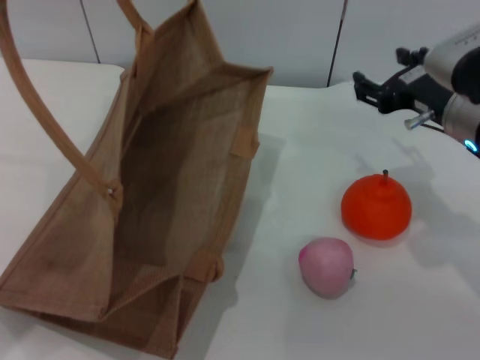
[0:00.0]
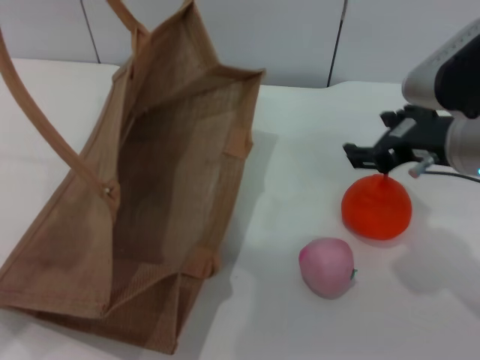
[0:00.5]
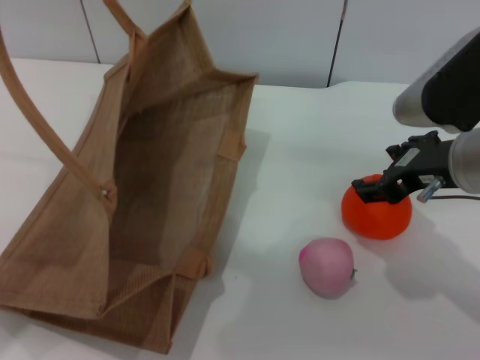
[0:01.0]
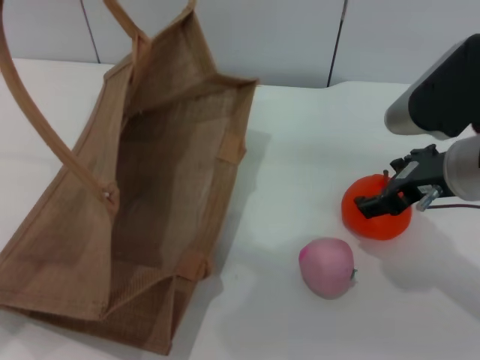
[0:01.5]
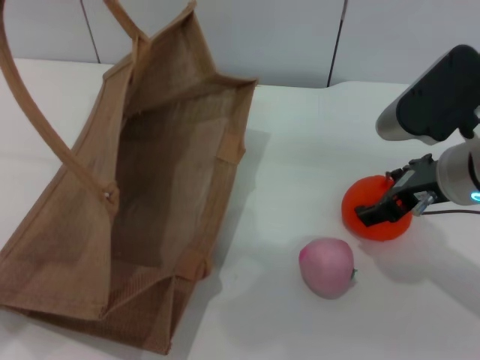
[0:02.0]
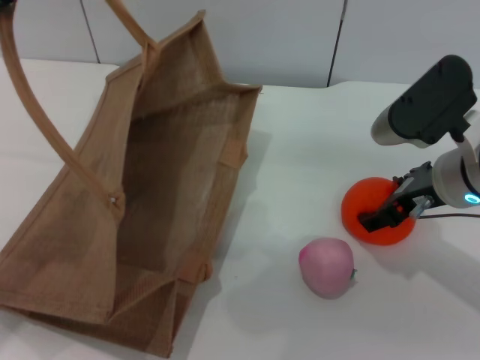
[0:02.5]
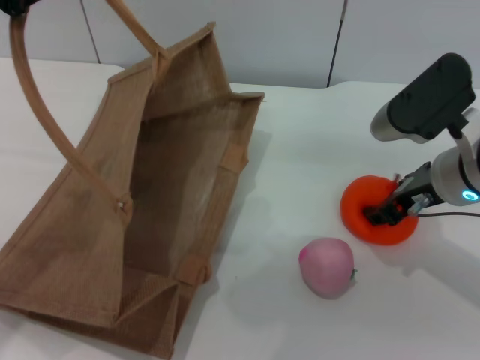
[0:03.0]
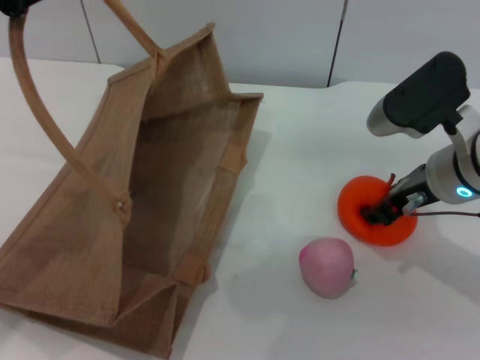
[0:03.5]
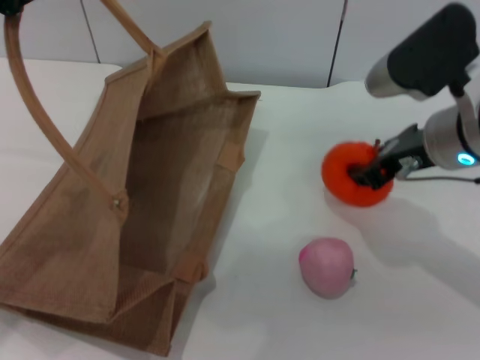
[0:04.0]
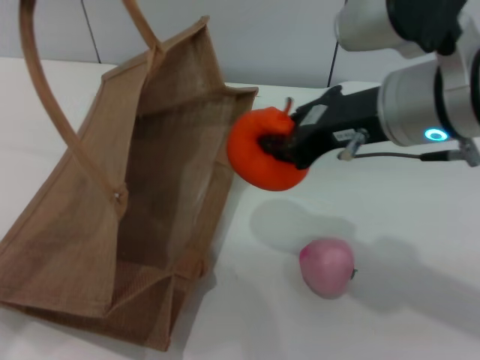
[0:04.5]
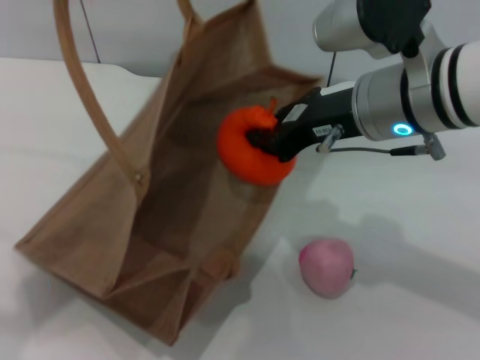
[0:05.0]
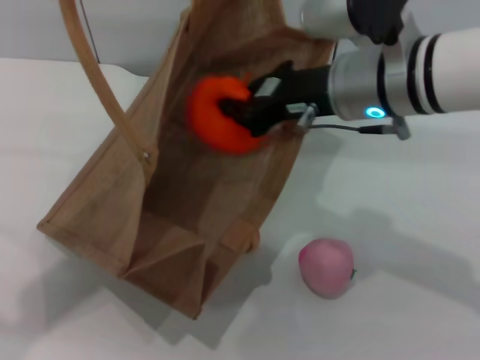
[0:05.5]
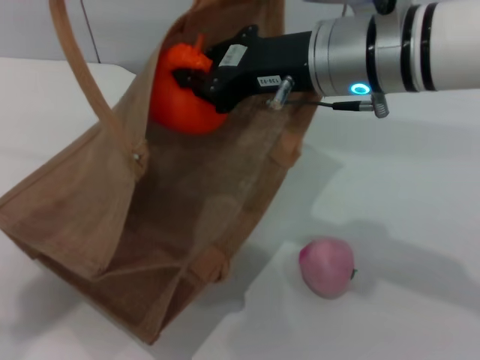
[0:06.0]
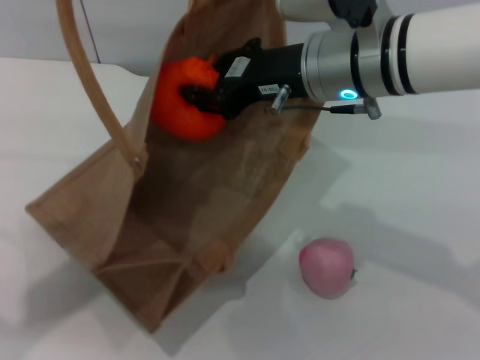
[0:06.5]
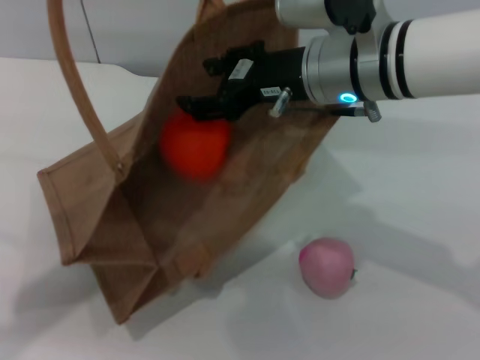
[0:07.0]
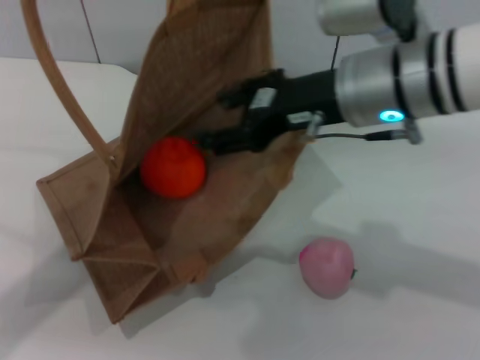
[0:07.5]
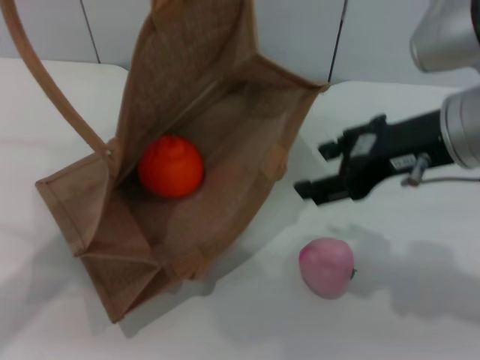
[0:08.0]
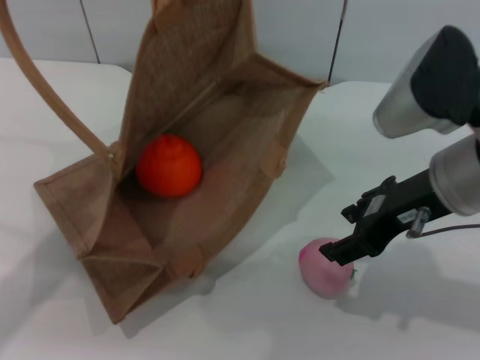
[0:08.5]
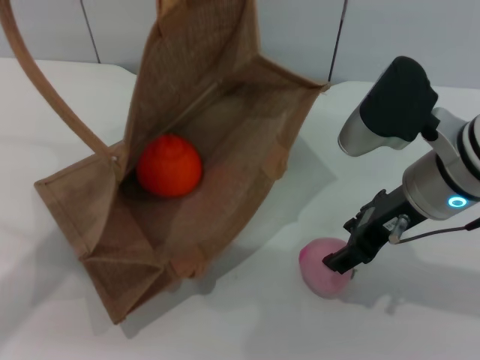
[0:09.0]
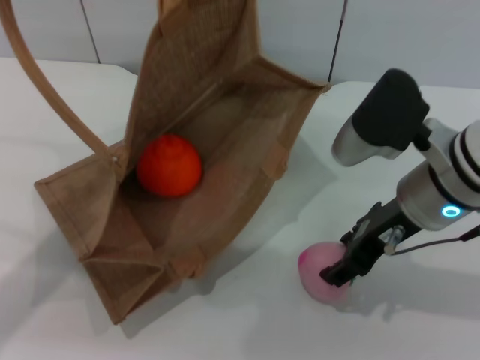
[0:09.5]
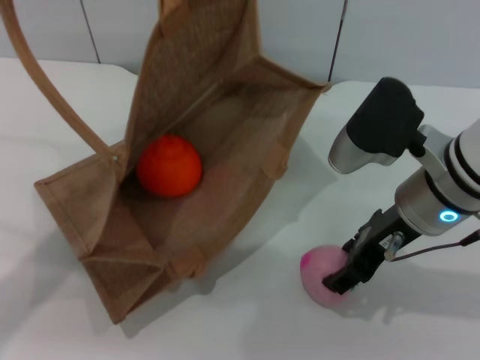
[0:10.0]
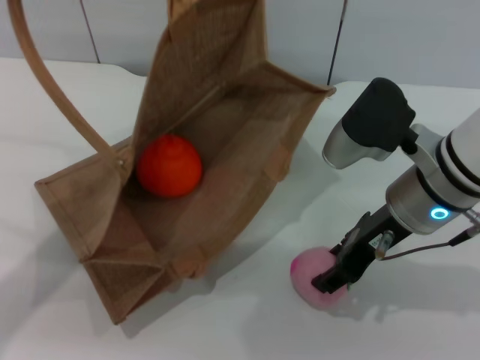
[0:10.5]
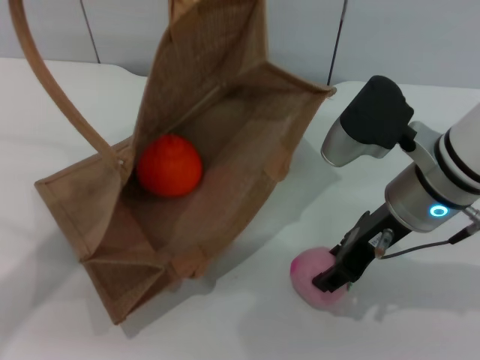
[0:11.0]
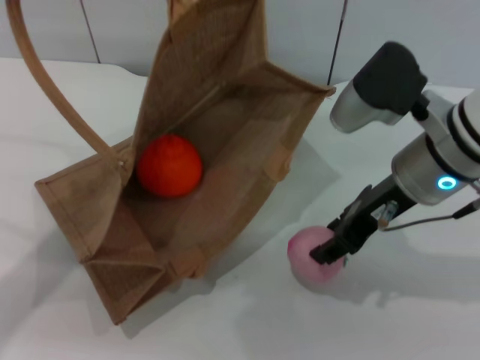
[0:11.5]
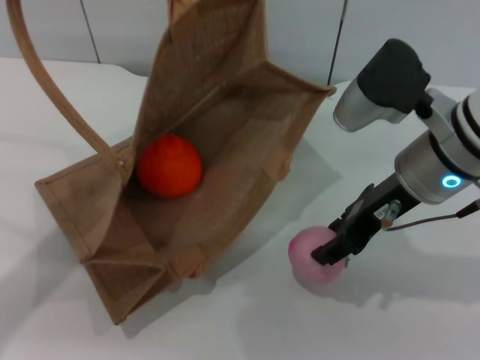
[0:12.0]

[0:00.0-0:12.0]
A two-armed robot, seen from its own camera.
Task of the whole recording: pick up the orange and peach from the table and place it in the brown handbag.
Step, 0:00.0 to 0:04.0: Pick up the orange with the right gripper.
Step, 0:04.5 to 0:07.5: Place the orange into the woven bag with the right gripper.
0:02.0 to 0:04.0: The right gripper closes.
0:04.0 to 0:06.0: The right gripper travels to the left and upward by approximately 10 cm, and closes up. The left gripper changes place by some 5 cm.
0:06.0 to 0:08.0: The right gripper goes approximately 10 cm to the right, and opens its fingers.
0:08.0 to 0:10.0: The right gripper is displaced downward by about 10 cm.
0:10.0 to 0:12.0: There are only small adjustments of the grippers.

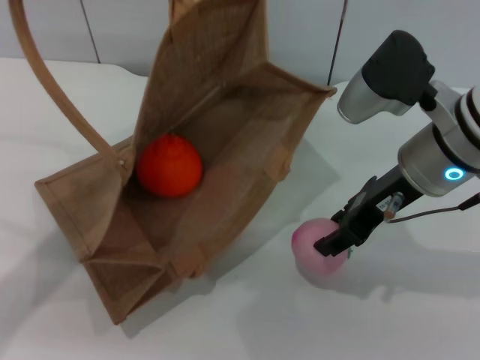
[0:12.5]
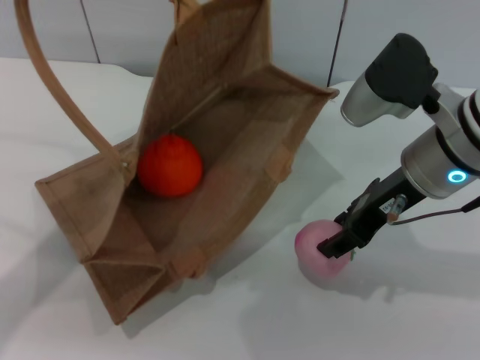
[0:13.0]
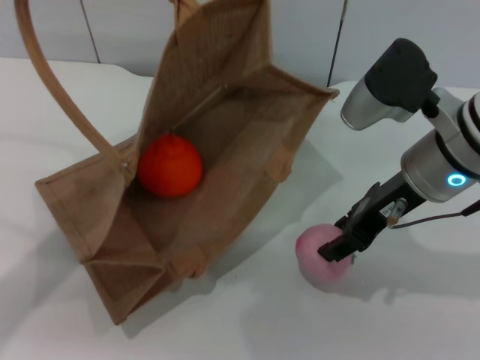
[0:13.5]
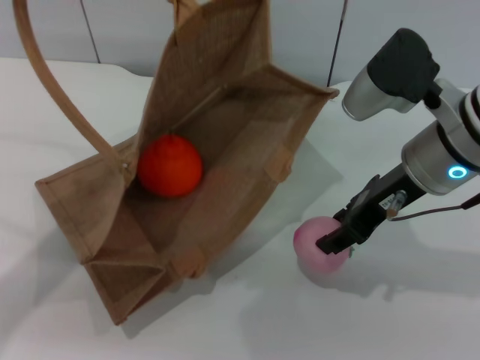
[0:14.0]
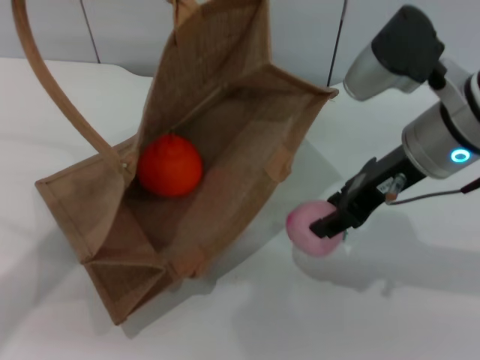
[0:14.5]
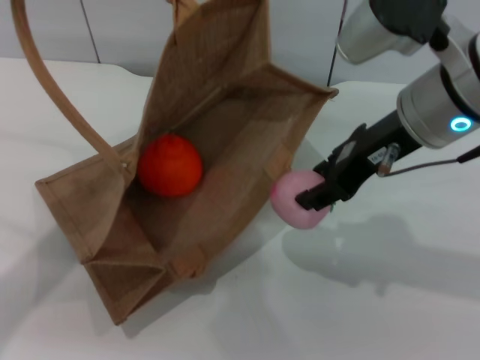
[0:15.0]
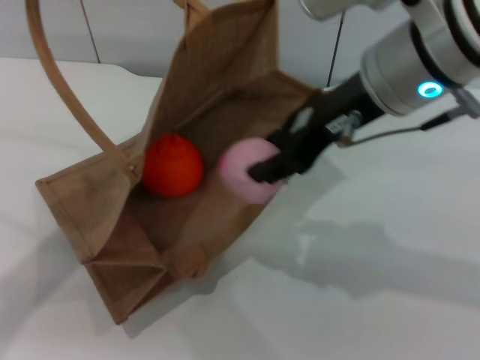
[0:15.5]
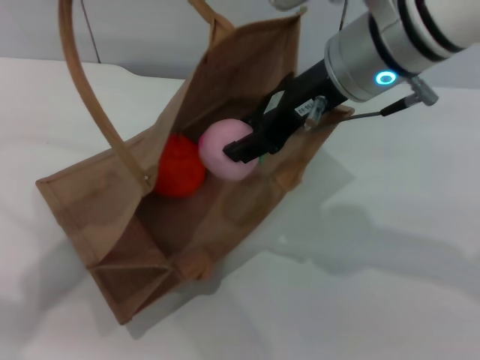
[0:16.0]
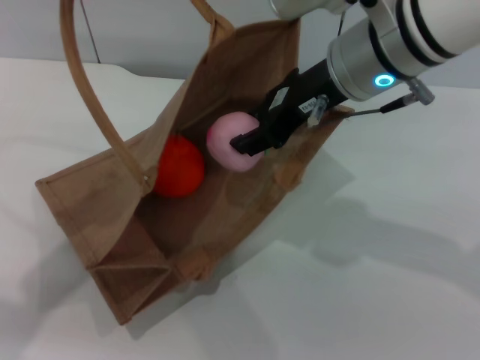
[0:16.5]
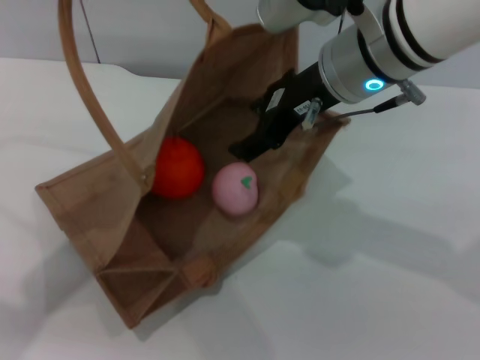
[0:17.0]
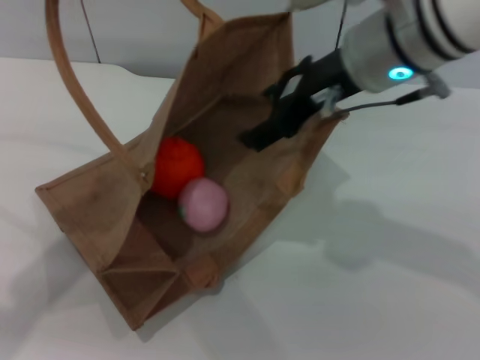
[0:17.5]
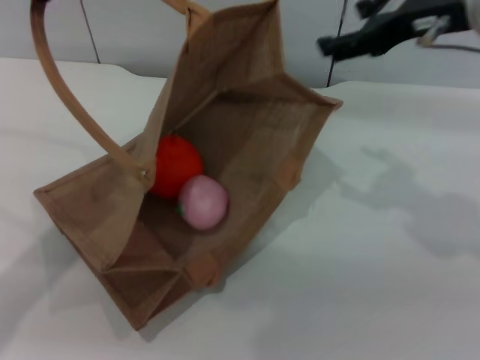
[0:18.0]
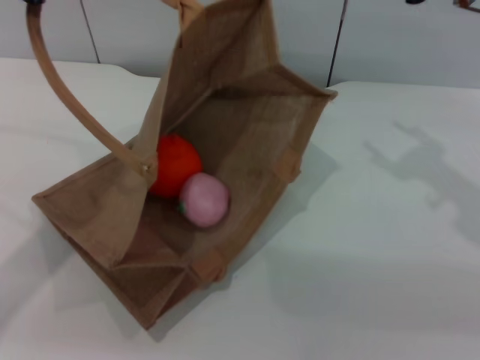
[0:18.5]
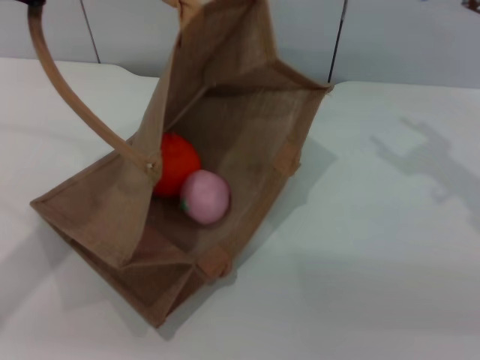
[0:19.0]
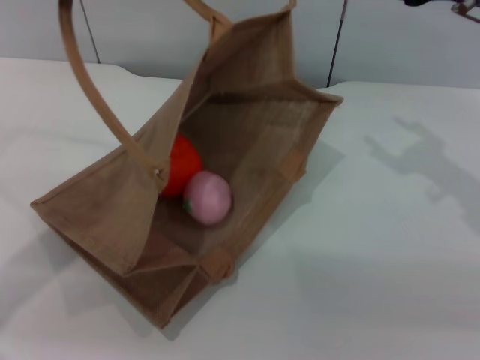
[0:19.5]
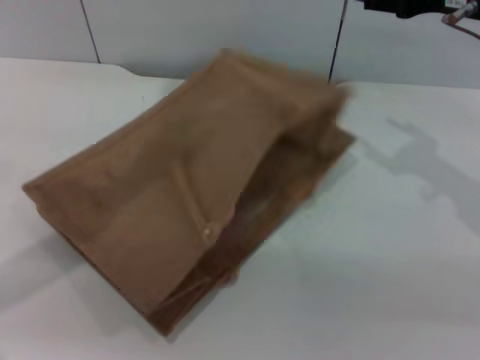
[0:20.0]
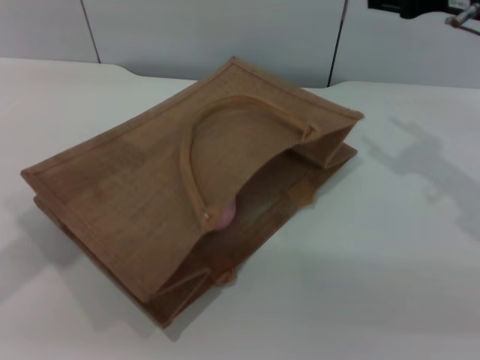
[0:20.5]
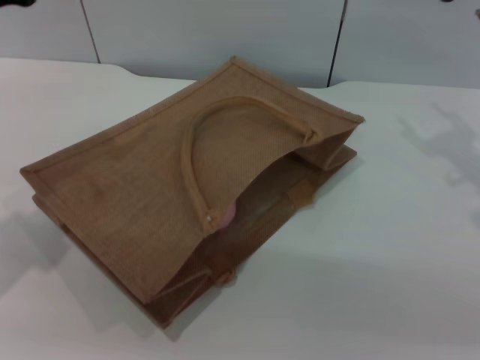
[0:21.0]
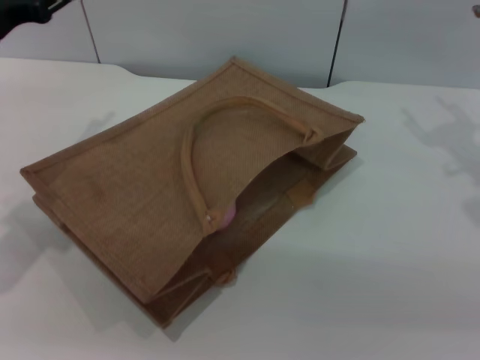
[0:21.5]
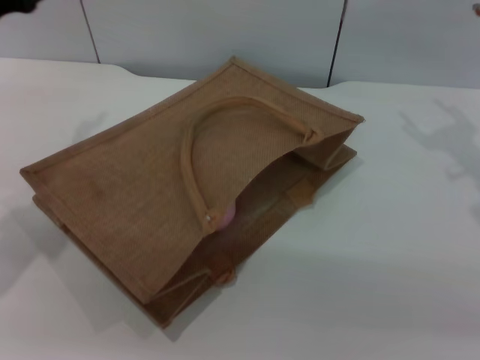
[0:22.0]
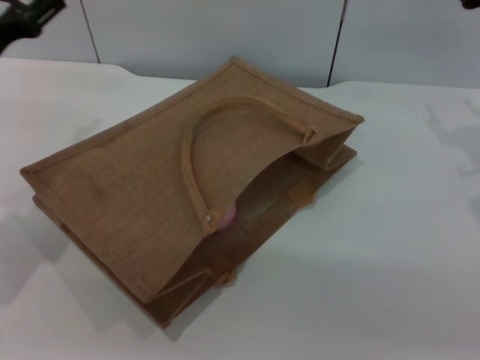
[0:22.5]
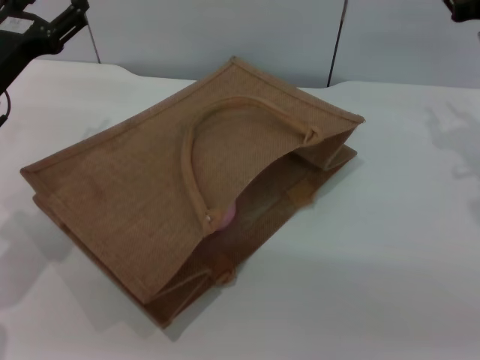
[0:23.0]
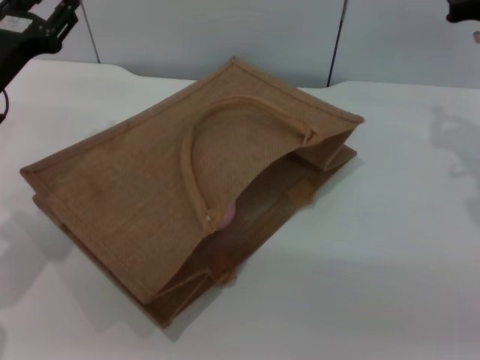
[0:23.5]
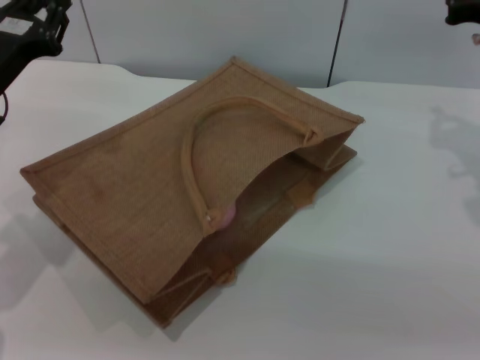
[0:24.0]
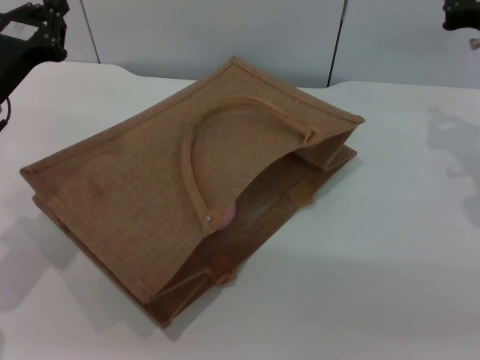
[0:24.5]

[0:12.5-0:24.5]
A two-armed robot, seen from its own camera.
Task of the whole recording: pick up the orange and peach from the table and place it in the brown handbag.
Step, 0:12.5 to 0:14.5: Pick up the peach with the right gripper.
Step, 0:15.0 to 0:17.5: Place the peach into the woven bag with the right gripper.
Step, 0:18.0 to 0:21.0: Lower the woven bag with the left gripper to close it.
0:12.5 to 0:14.5: The grippers move only a little.
0:14.5 to 0:16.5: The right gripper heads to the left, covering approximately 5 cm.
0:16.5 to 0:18.5: The left gripper moves about 5 cm, while the right gripper shifts about 15 cm to the right.
0:18.5 to 0:20.5: The left gripper opens its fingers.
0:20.5 to 0:22.5: The right gripper changes place by approximately 5 cm. The left gripper moves downward, approximately 10 cm.
0:22.5 to 0:24.5: The left gripper closes its fingers.

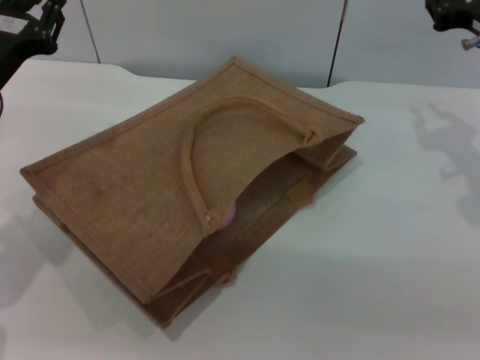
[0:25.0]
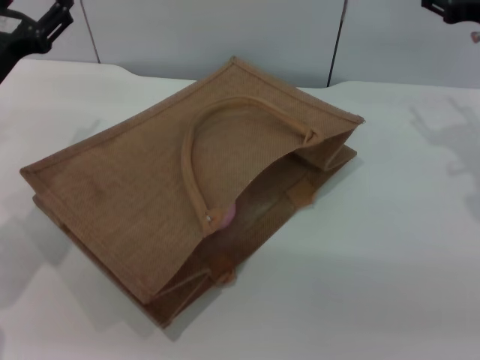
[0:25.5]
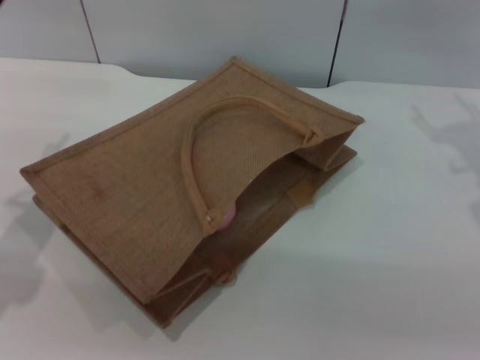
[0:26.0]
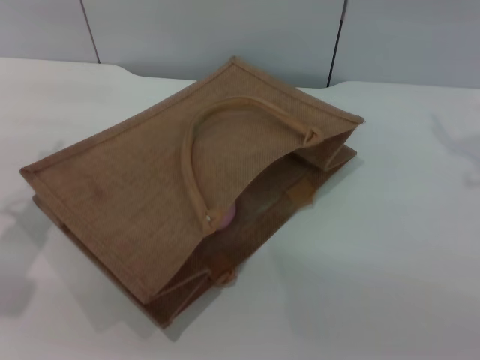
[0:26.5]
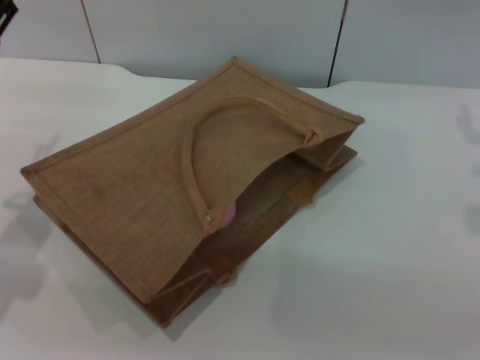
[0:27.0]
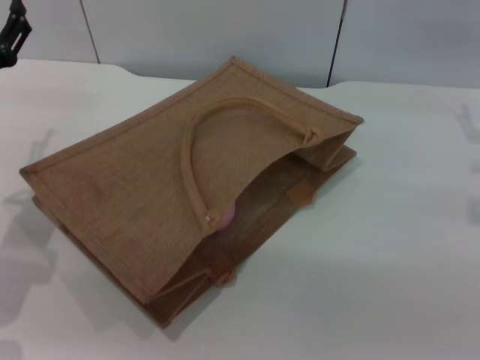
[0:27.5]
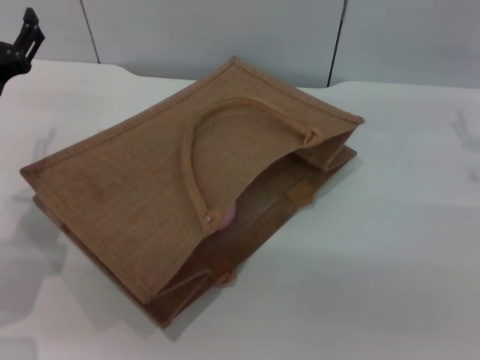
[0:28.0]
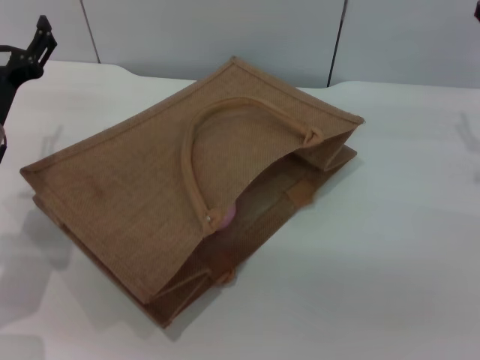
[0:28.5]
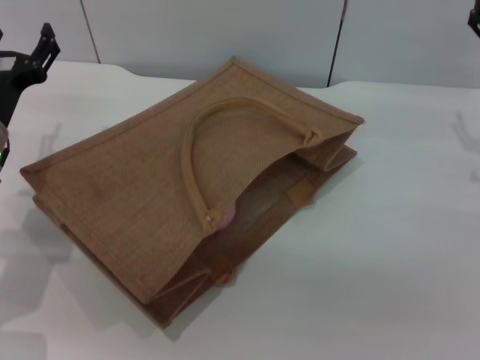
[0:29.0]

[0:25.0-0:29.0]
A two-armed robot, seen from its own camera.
Task of the whole recording: pick up the orange and peach from the table and place it in the brown handbag.
0:25.0 to 0:27.0: The left gripper opens, while the right gripper is displaced upward by about 5 cm, and opens its fingers.
0:27.0 to 0:29.0: The left gripper shifts by approximately 5 cm.
